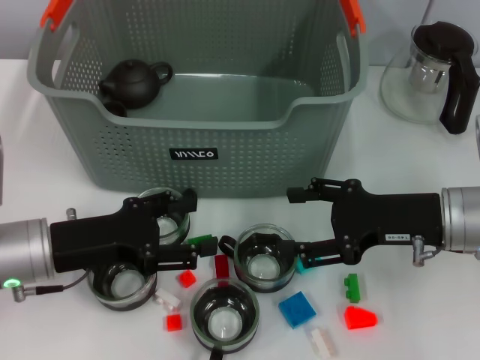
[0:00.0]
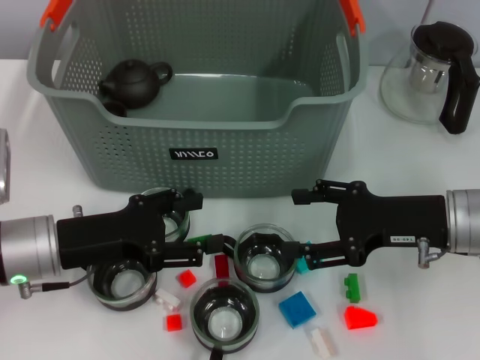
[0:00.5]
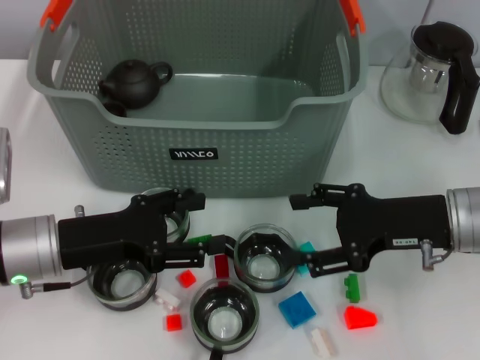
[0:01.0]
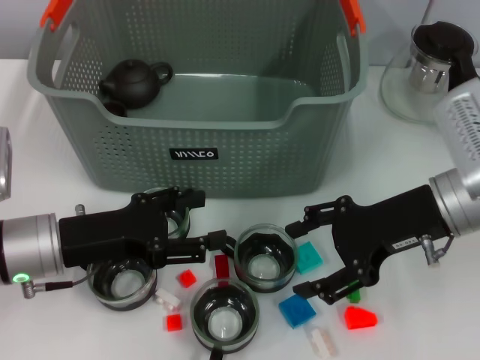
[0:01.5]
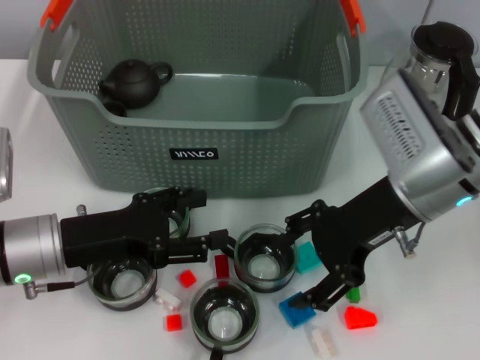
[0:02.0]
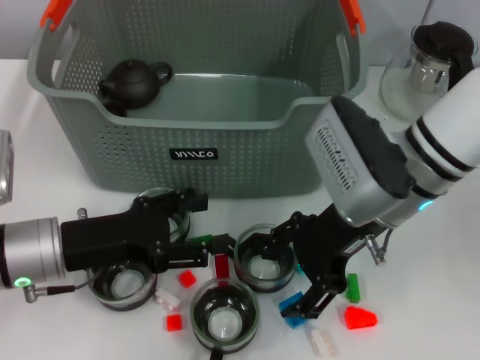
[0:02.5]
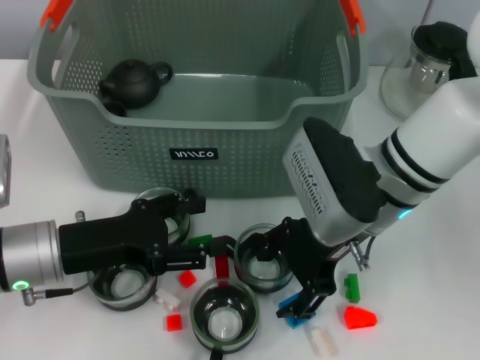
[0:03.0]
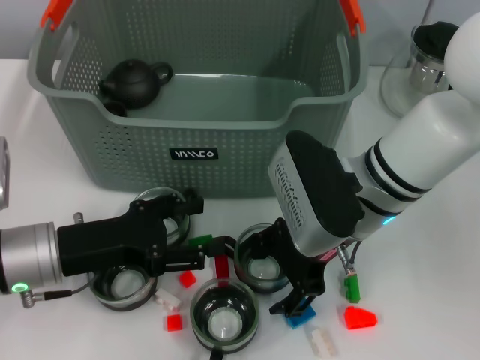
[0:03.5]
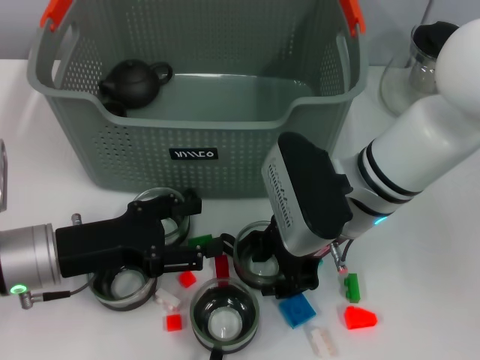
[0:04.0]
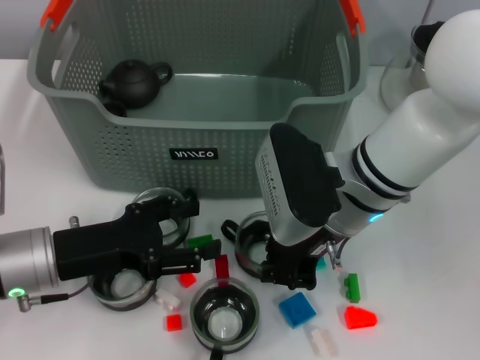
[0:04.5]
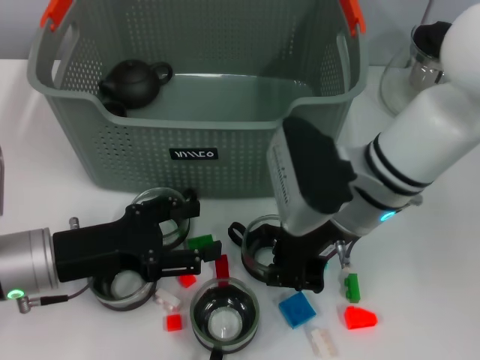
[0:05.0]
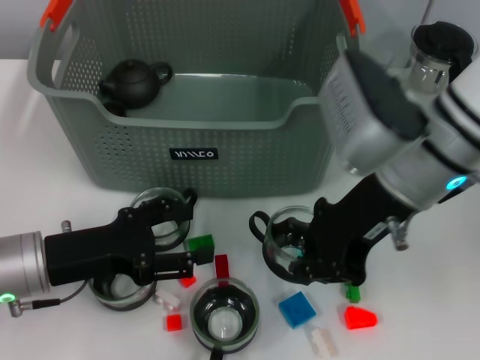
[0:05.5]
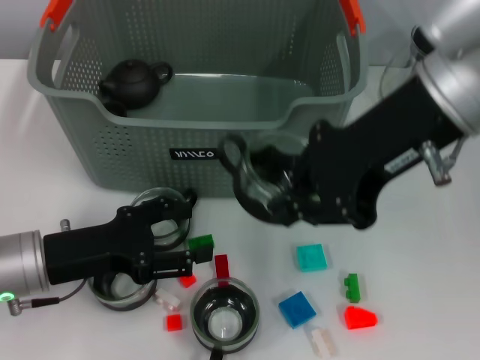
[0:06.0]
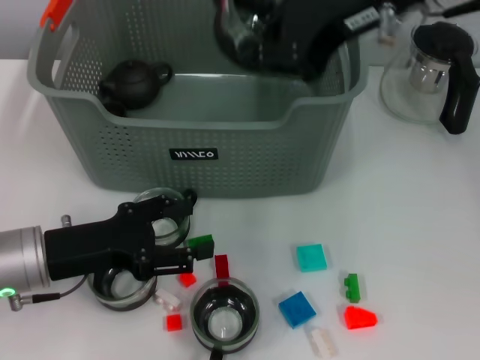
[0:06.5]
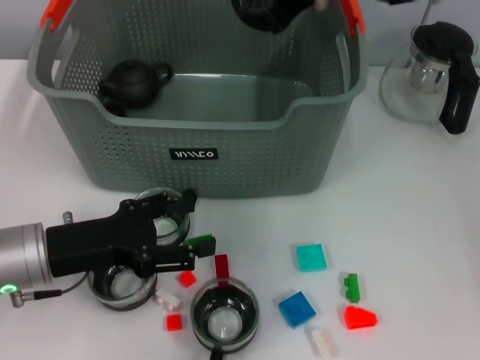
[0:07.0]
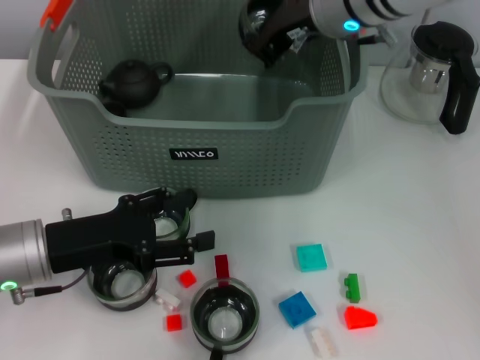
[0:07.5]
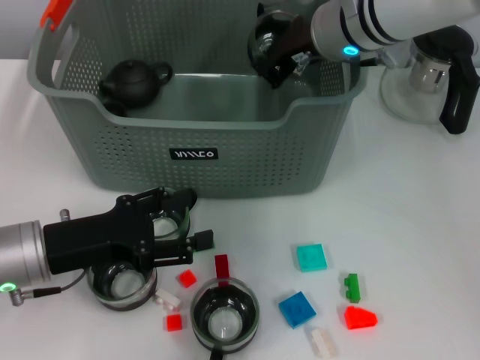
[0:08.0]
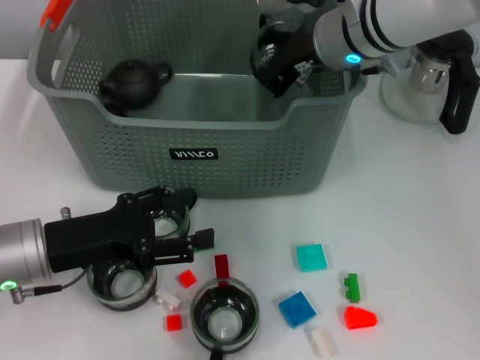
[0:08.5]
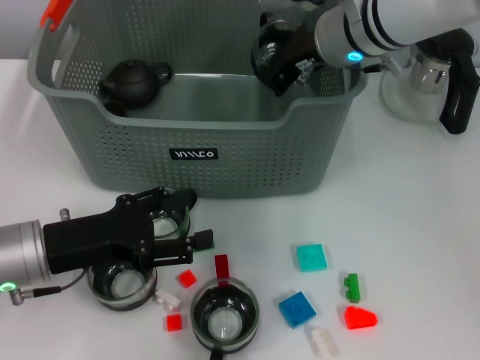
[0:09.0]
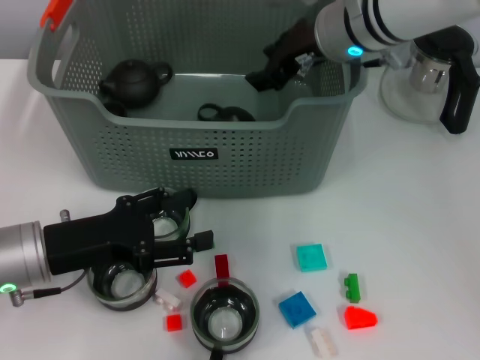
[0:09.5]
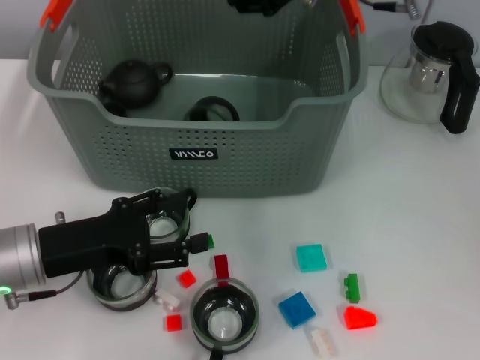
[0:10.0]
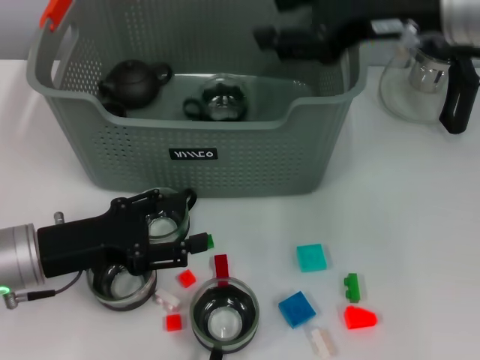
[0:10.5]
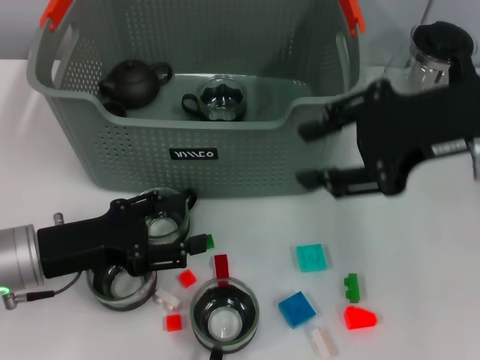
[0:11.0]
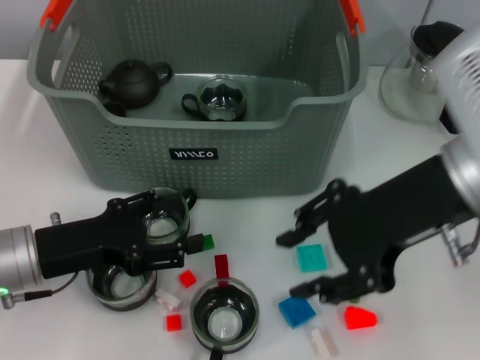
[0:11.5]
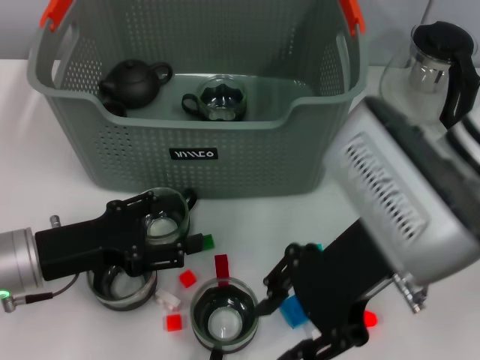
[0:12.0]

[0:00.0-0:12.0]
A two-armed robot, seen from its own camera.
Task of the whole recording: pick up the teacup on the table and place it into the storage bin, pick up the block on the table and place it into the storage bin.
Step, 0.0 to 4.5 s: Grasp the cup with right gripper.
Step, 5.0 to 9.5 s: Place the cup in the storage box with right gripper.
0.0 to 2.0 s: The right gripper moves to the left and upward, some 10 cm.
2.0 to 4.0 s: The right gripper moves to the left, about 5 cm.
4.0 to 6.0 s: The right gripper goes some 15 cm upward, and closes.
6.0 to 8.0 s: The right gripper shifts roughly 15 cm forward and downward.
8.0 to 10.0 s: The right gripper heads upward, covering roughly 5 cm, and opens its fingers.
10.0 to 12.0 s: The right gripper moves backward, some 15 cm.

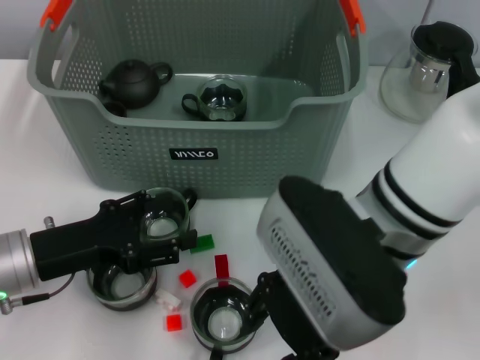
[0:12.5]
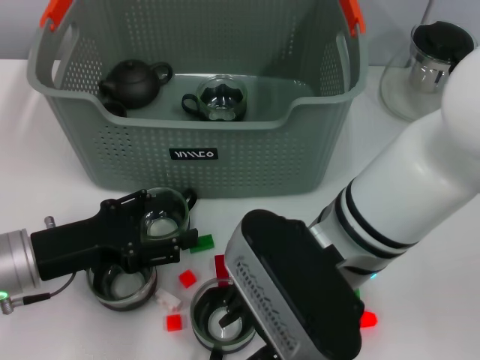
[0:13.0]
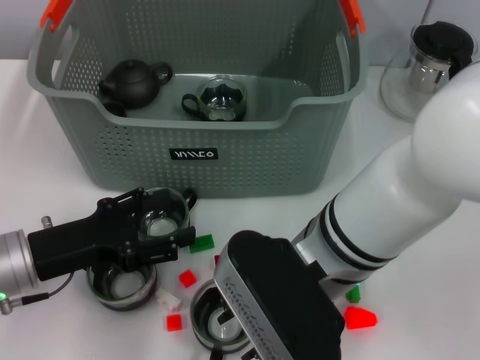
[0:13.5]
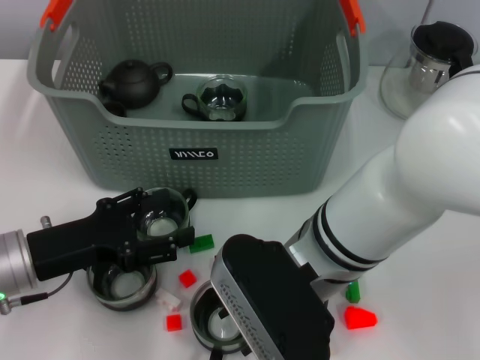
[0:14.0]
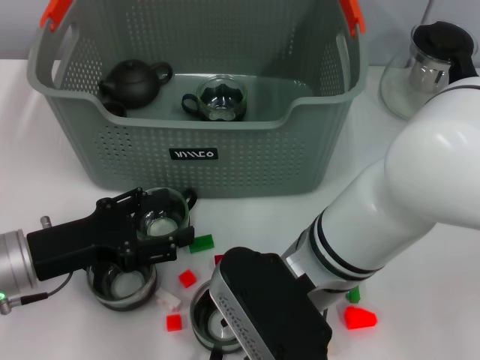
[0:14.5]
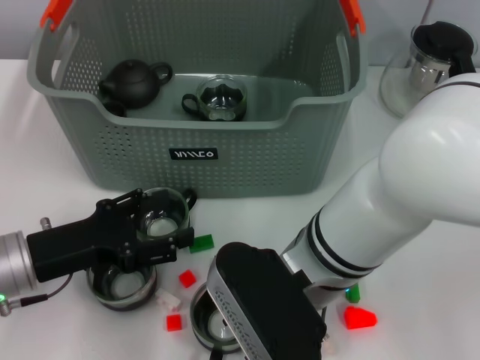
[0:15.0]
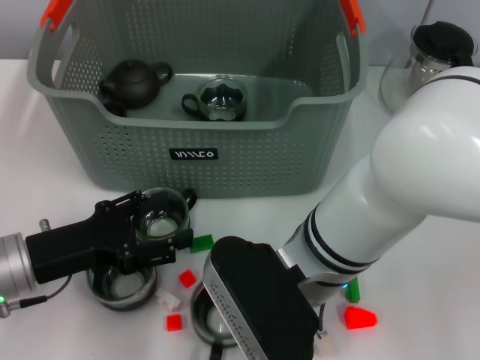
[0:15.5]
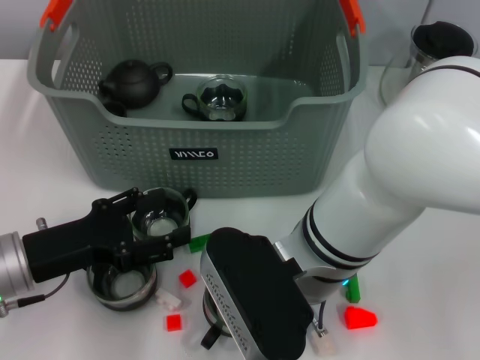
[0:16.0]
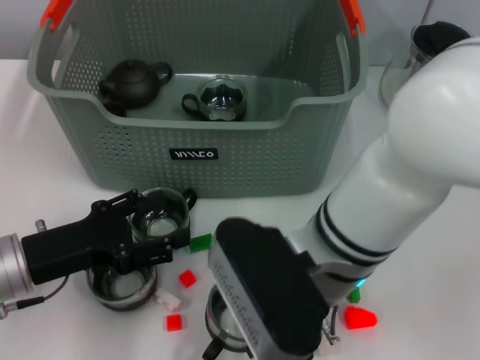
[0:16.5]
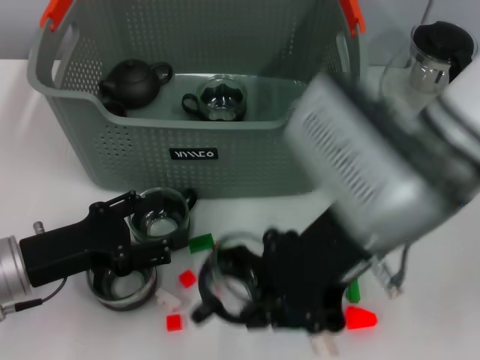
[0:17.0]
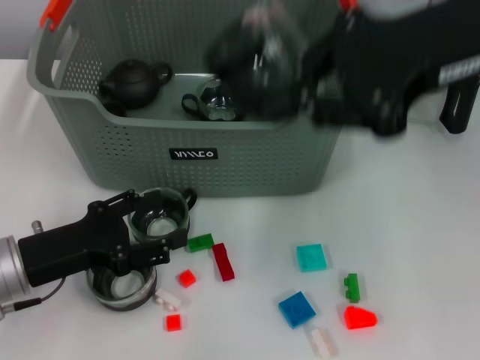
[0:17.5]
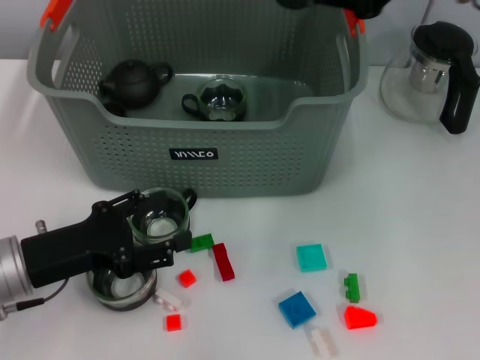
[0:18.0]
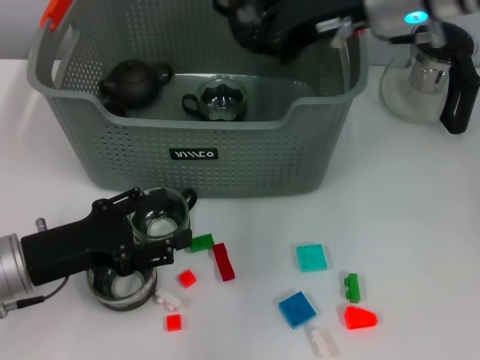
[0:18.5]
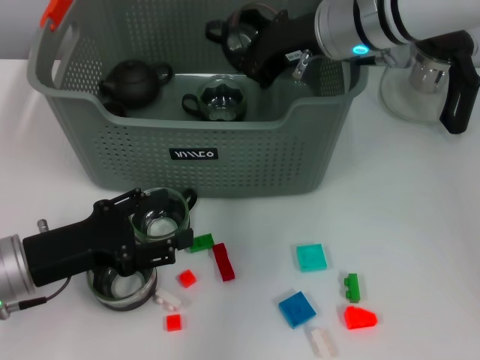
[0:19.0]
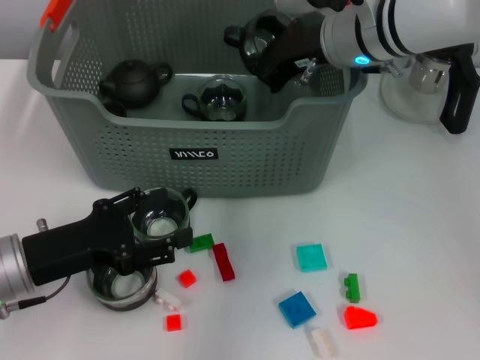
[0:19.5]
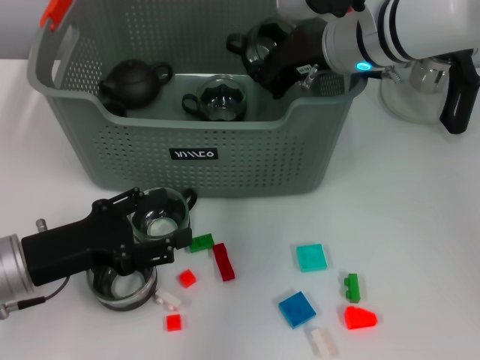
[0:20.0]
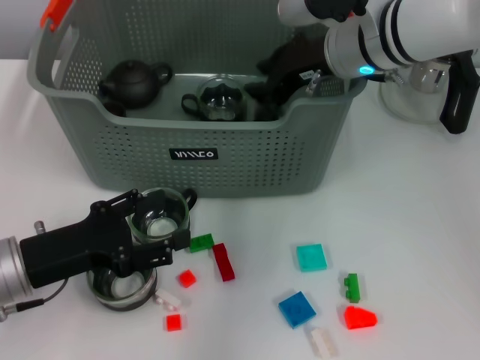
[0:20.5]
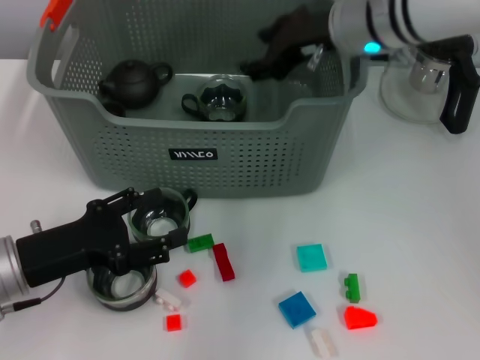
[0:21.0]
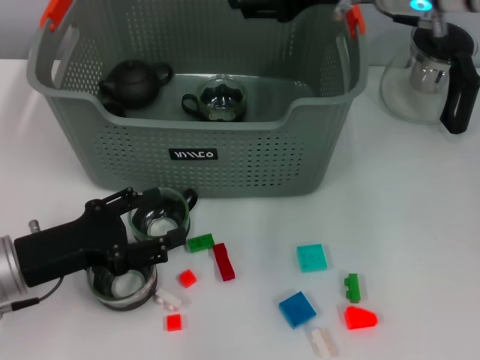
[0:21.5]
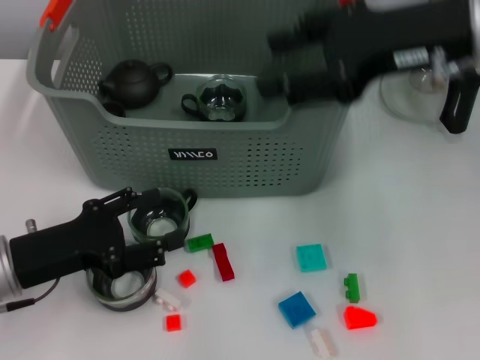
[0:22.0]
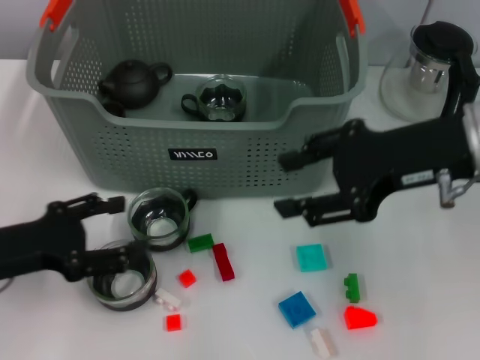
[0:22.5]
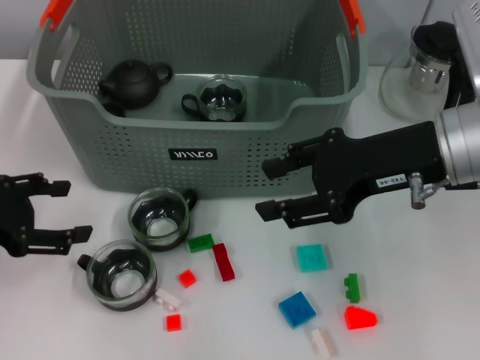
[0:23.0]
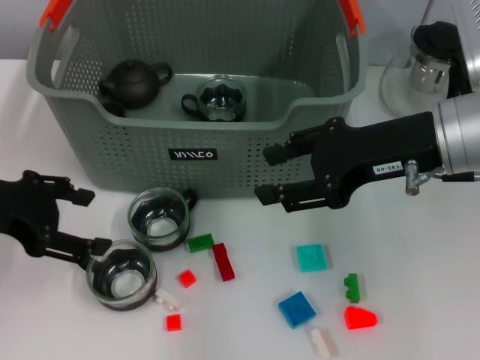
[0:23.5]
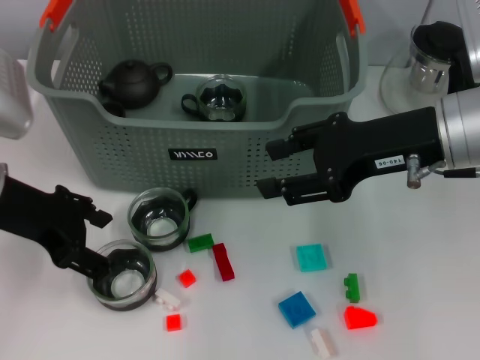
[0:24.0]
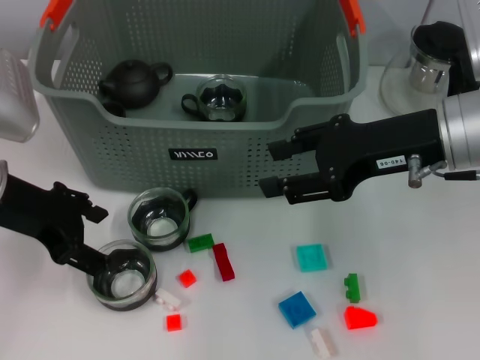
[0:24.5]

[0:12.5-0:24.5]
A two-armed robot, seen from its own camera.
Task of the whole recording: pick up the teacup on the table and place it into the storage bin, pick up the block on the table and place it into the storage bin.
Step, 12.5 to 16.0 s: Grasp the cup with right gripper.
Step, 16.5 to 21.0 s: Place the cup in the storage box with right gripper.
12.5 to 14.5 s: The right gripper heads downward, covering roughly 5 cm.
14.5 to 16.5 s: The right gripper closes its fingers.
16.5 to 18.5 s: The right gripper travels forward, upward and to the right by roughly 20 cm.
18.5 to 20.5 s: The right gripper moves downward, about 5 cm.
20.5 to 22.5 s: The right gripper moves backward and to the right, approximately 15 cm, and opens.
22.5 to 24.5 s: The left gripper is displaced upward and forward by roughly 10 cm.

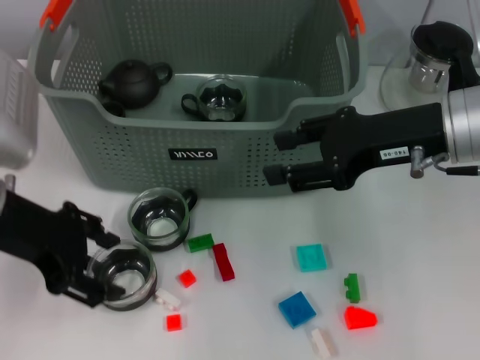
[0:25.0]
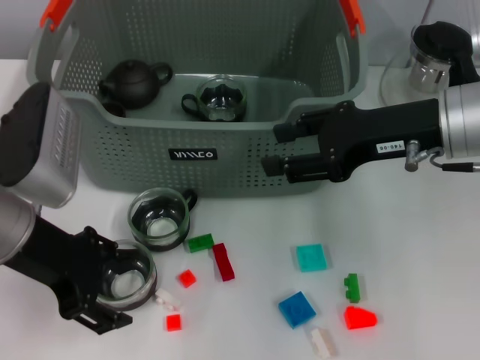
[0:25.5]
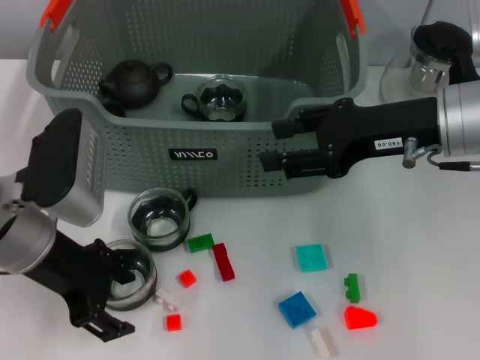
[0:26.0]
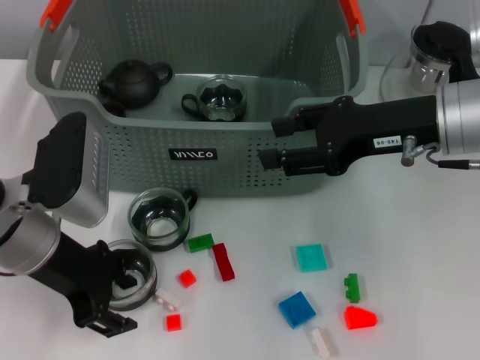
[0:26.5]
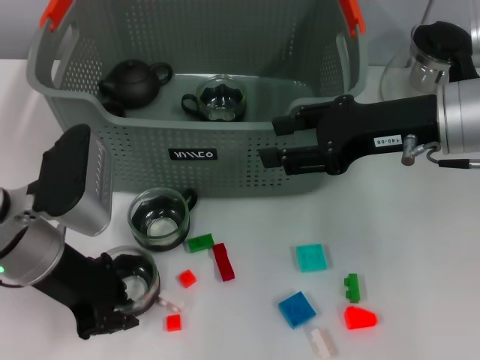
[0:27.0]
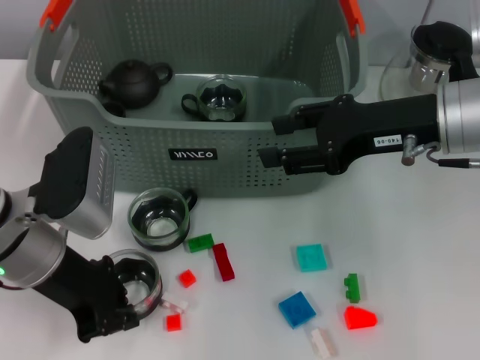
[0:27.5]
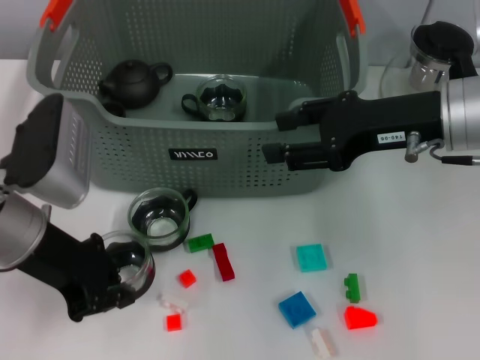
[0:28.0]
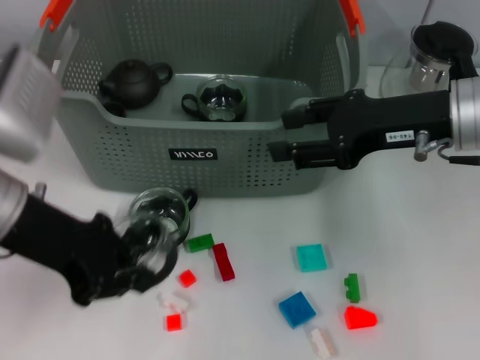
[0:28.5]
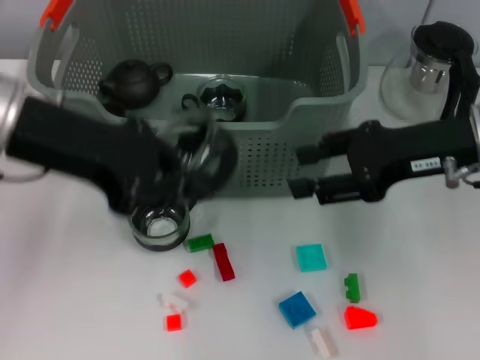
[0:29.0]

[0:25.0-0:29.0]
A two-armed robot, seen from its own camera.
Task of the whole recording: pick up the teacup on the table and place it into the storage bin, pick up the block on the table and place it into the storage bin.
Step, 25.0 to 27.0 s: Grasp the cup with left gripper.
25.0 to 27.0 s: The left gripper goes roughly 5 cm downward, and closes its fingers.
27.0 to 29.0 s: The left gripper moves upward, approximately 10 cm.
